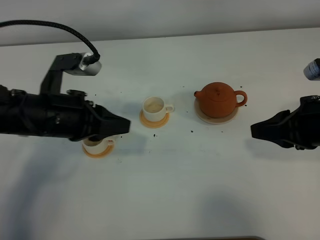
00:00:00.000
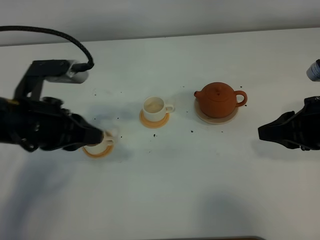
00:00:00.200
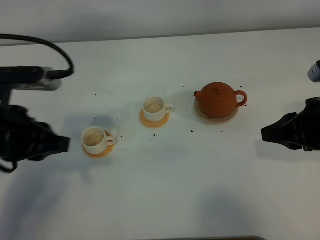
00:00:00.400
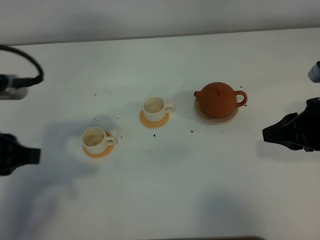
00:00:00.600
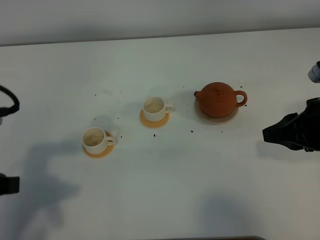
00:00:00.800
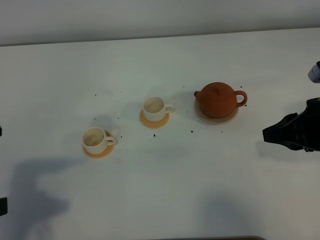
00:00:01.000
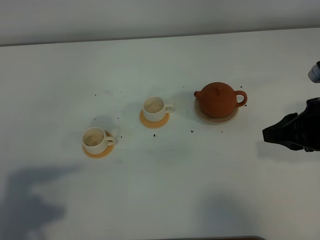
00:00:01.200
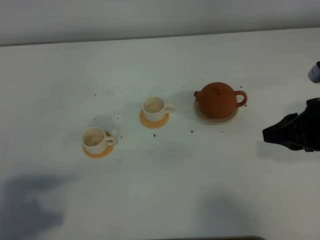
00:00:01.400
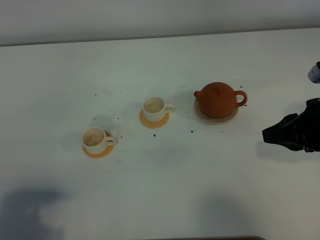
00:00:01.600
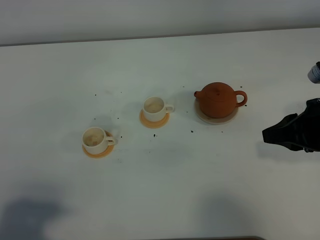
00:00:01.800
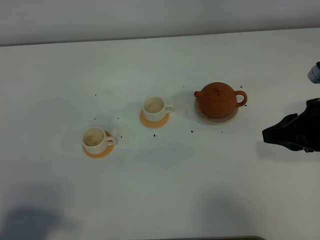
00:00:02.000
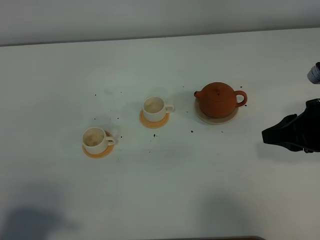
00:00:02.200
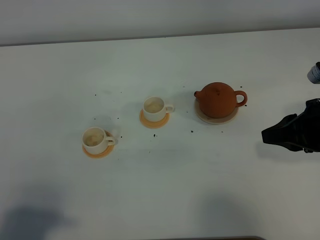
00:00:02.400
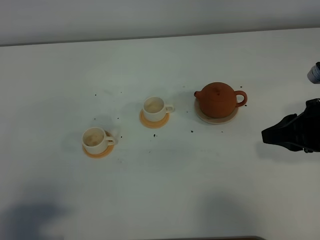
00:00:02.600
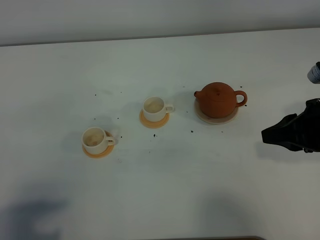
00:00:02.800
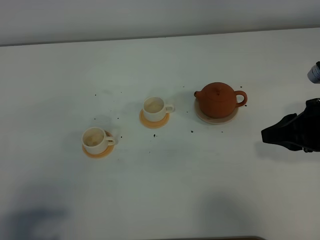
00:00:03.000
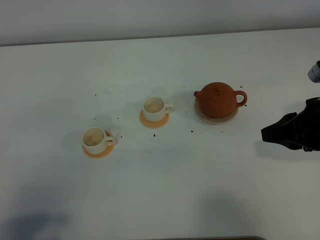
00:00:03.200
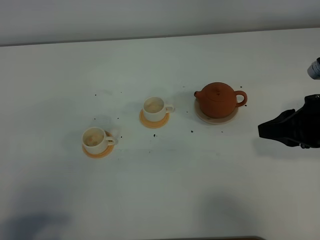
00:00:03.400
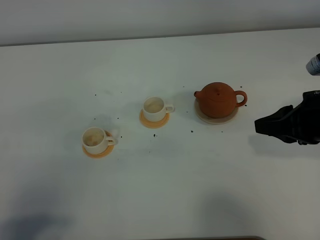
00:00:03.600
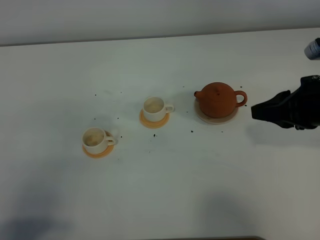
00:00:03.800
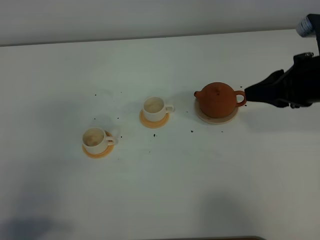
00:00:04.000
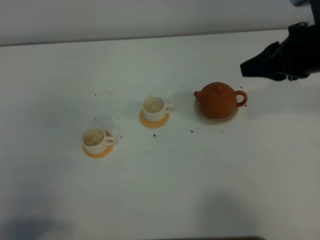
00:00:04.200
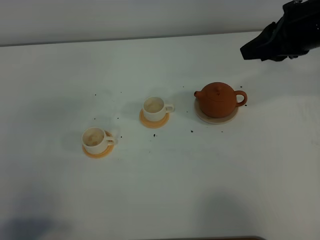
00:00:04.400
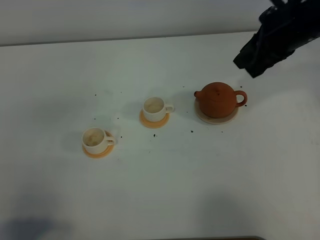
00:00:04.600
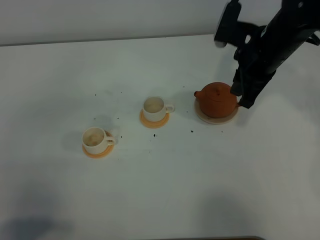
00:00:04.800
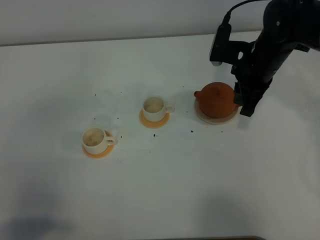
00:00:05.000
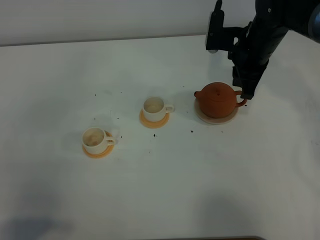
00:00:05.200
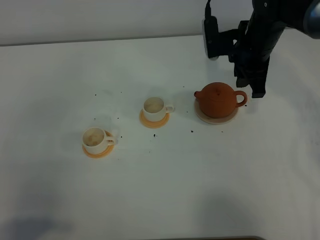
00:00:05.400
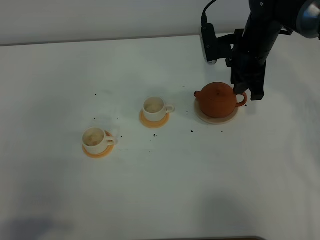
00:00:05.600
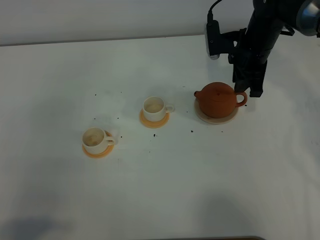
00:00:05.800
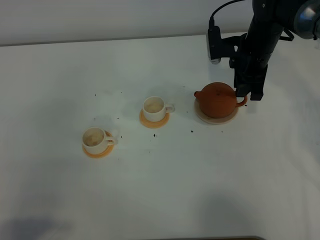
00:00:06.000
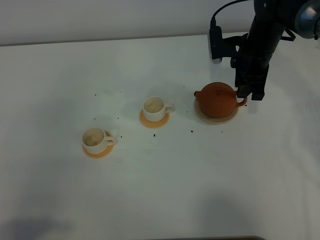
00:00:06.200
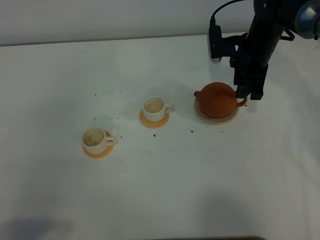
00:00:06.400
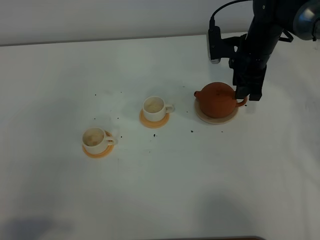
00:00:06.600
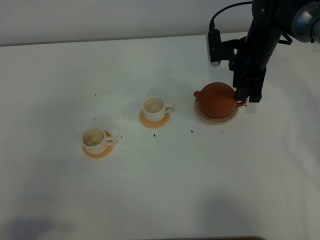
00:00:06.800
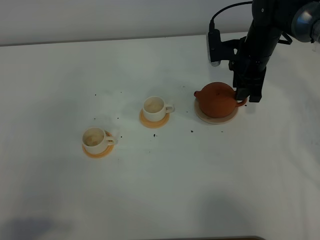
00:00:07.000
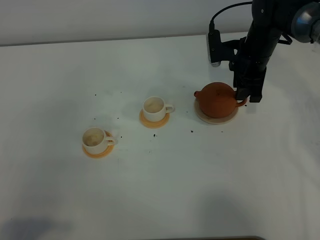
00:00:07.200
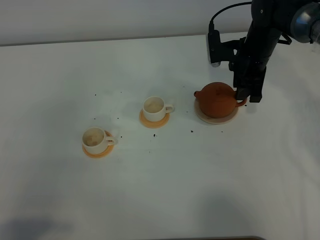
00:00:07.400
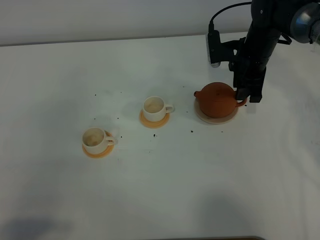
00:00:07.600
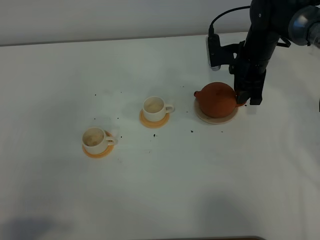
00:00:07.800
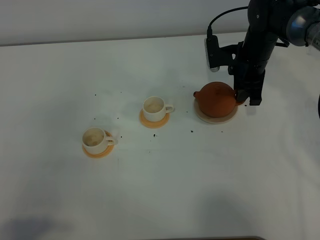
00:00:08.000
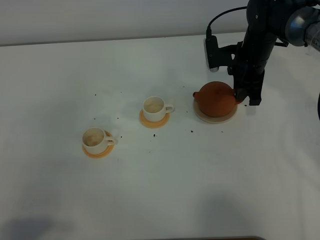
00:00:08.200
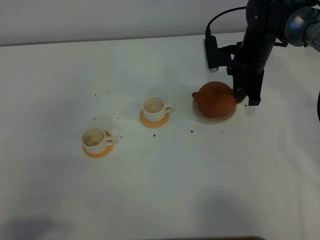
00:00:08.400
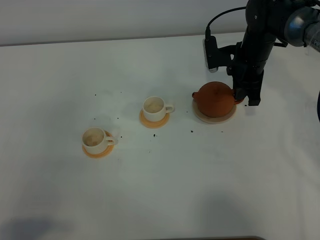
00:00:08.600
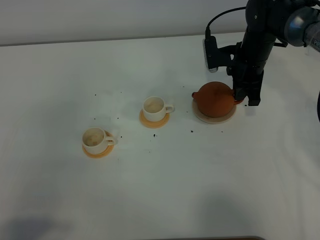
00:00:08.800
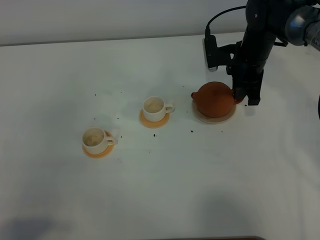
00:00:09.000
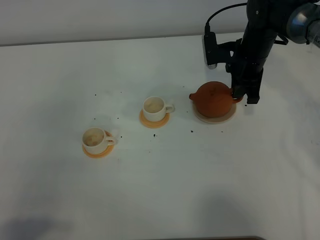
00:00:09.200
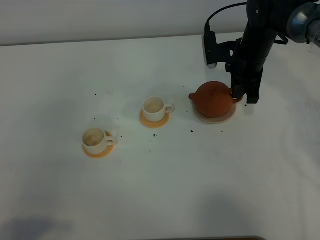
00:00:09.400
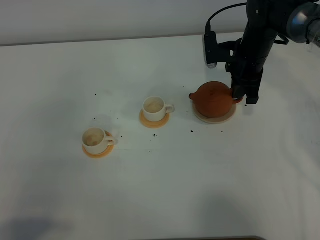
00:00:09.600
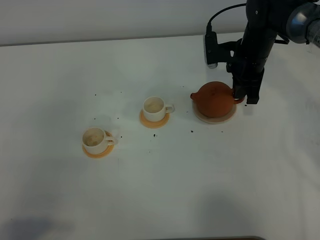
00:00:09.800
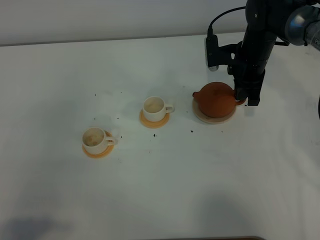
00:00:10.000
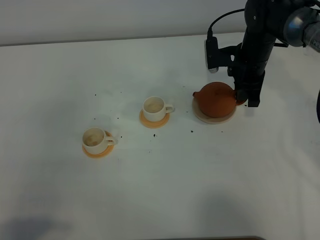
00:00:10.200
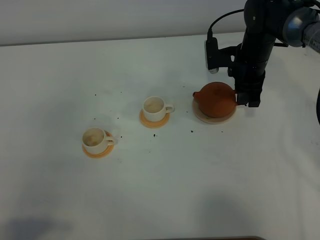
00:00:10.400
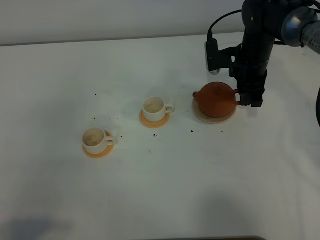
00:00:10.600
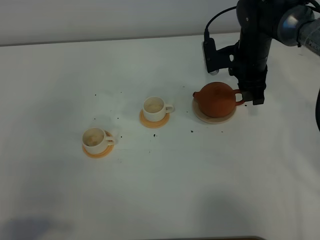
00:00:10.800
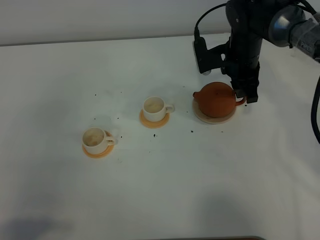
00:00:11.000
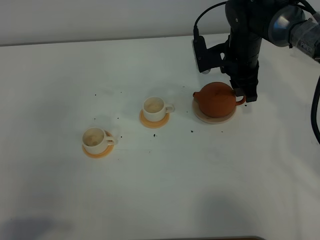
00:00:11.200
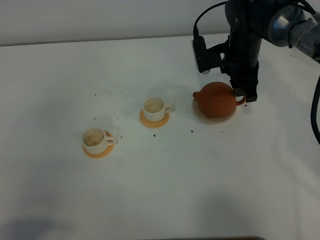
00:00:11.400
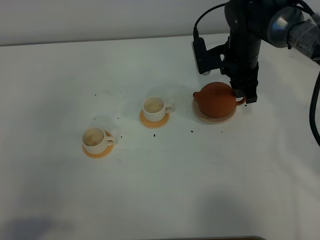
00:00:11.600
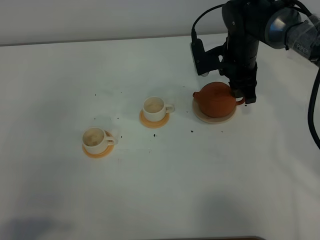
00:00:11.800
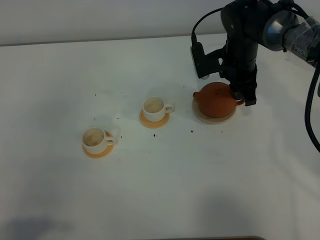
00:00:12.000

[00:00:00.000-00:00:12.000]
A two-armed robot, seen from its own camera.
Task of the whole recording: grasp the brown teapot and pour the tea into the two white teacups one by one, put the brown teapot back in its original place.
00:00:00.000 to 00:00:01.600: The left gripper shifts about 25 cm backward and to the left.
00:00:01.600 to 00:00:03.000: There are only small adjustments of the grippers.
00:00:03.000 to 00:00:04.400: The right gripper travels forward and upward by approximately 15 cm.
00:00:04.400 to 00:00:06.000: The right gripper is displaced downward, forward and to the left by approximately 20 cm.
00:00:06.000 to 00:00:07.600: The right gripper opens up.
00:00:07.600 to 00:00:09.000: The right gripper closes.
00:00:09.000 to 00:00:10.400: The right gripper opens.
00:00:10.400 to 00:00:12.000: The grippers move only a little.

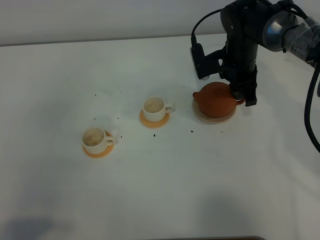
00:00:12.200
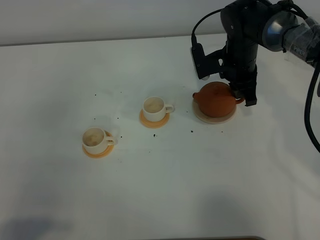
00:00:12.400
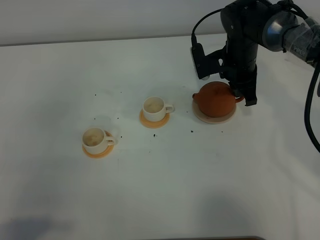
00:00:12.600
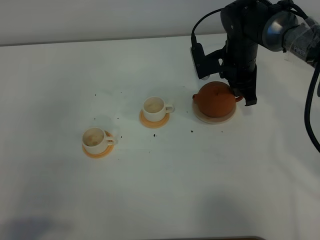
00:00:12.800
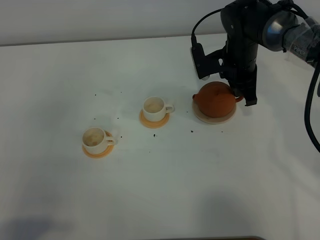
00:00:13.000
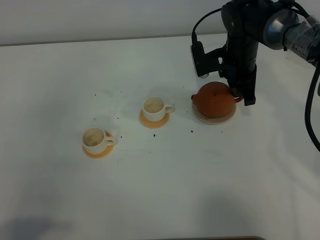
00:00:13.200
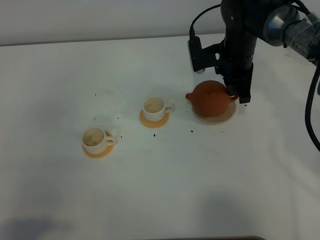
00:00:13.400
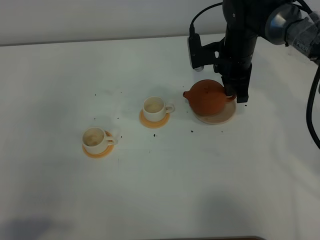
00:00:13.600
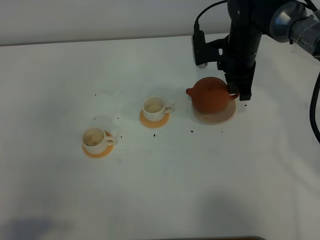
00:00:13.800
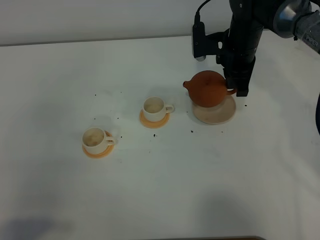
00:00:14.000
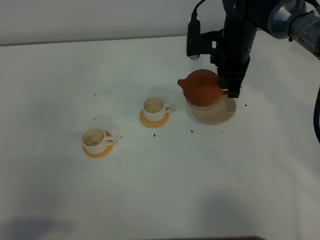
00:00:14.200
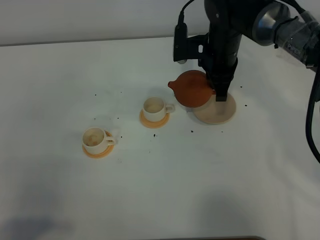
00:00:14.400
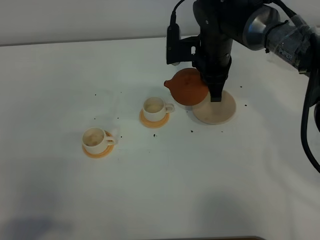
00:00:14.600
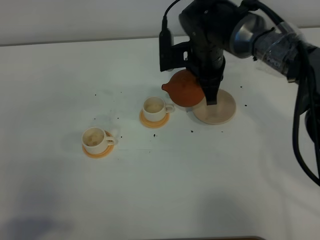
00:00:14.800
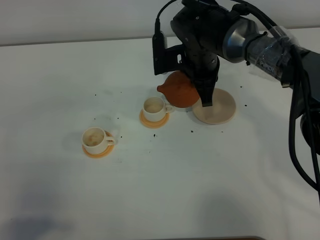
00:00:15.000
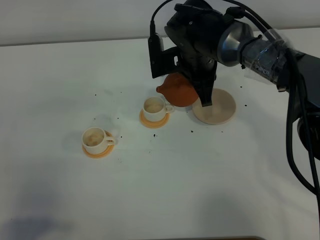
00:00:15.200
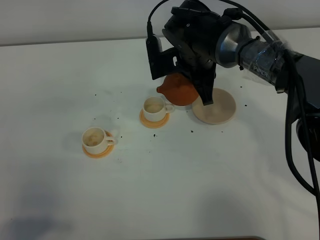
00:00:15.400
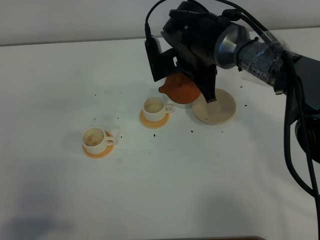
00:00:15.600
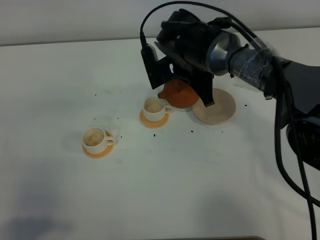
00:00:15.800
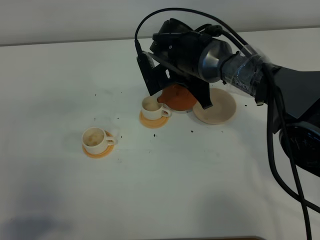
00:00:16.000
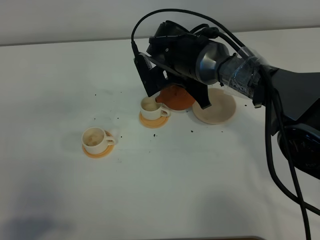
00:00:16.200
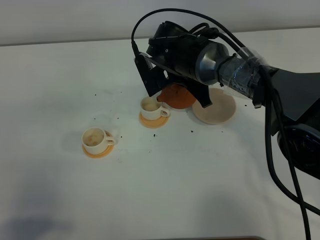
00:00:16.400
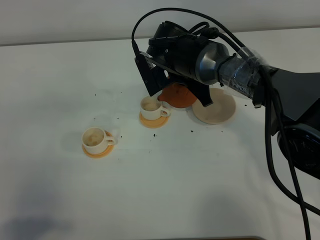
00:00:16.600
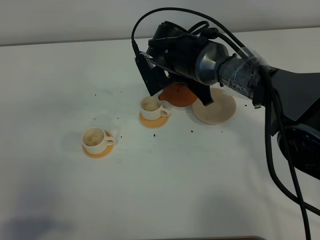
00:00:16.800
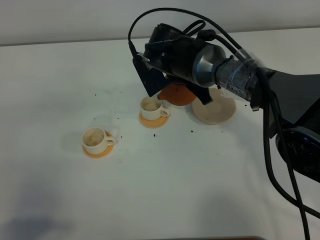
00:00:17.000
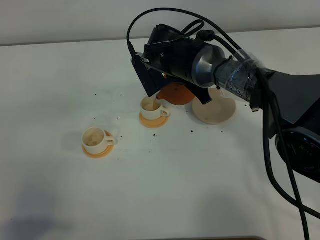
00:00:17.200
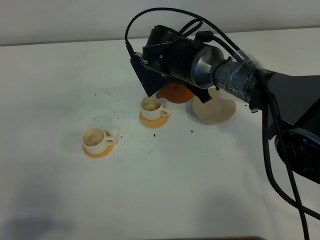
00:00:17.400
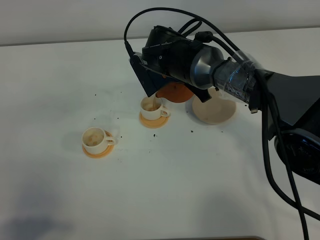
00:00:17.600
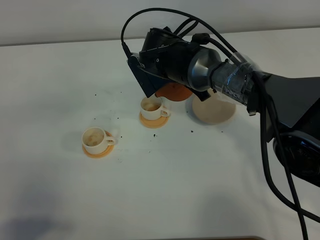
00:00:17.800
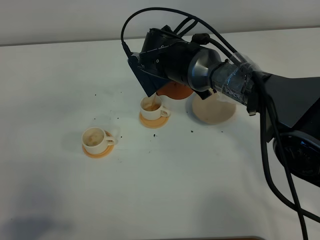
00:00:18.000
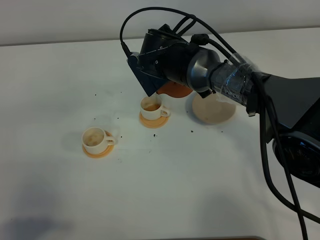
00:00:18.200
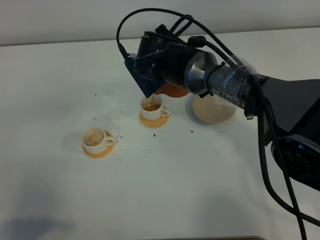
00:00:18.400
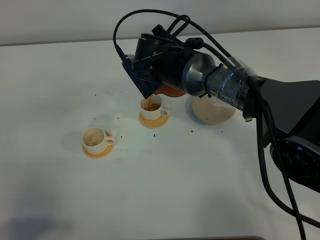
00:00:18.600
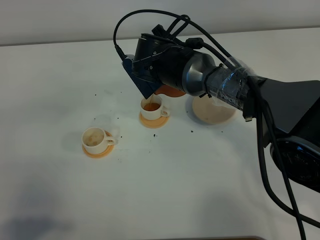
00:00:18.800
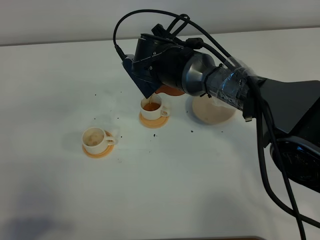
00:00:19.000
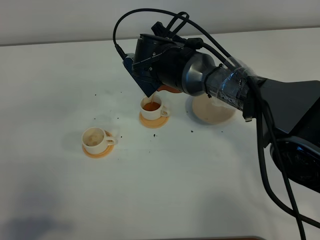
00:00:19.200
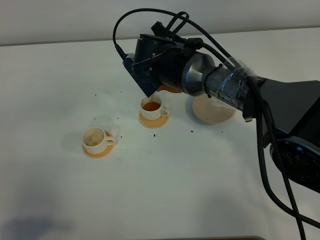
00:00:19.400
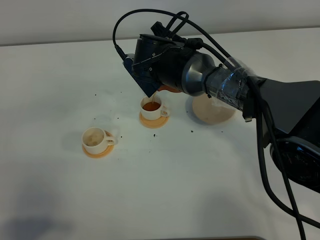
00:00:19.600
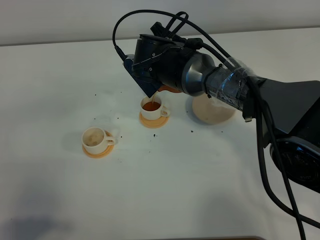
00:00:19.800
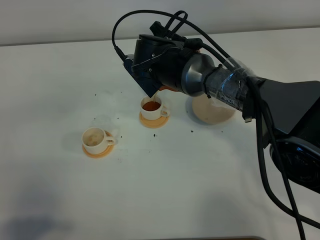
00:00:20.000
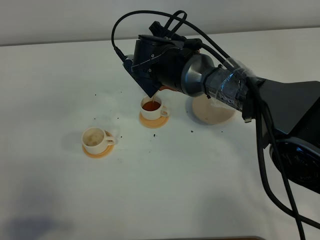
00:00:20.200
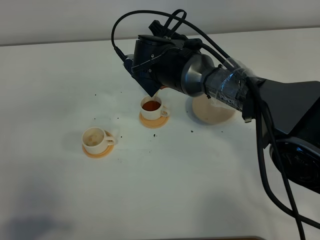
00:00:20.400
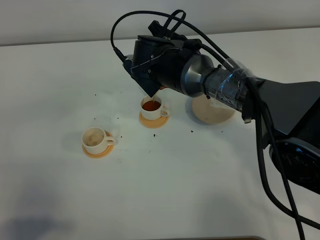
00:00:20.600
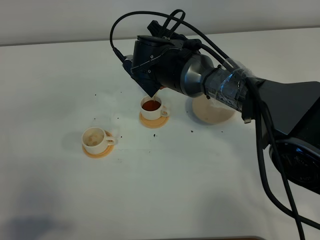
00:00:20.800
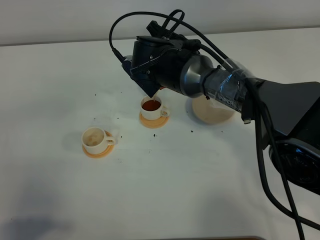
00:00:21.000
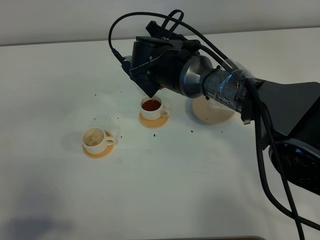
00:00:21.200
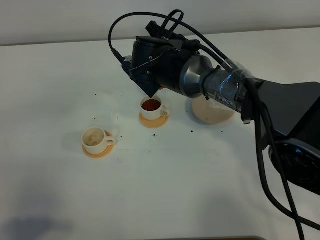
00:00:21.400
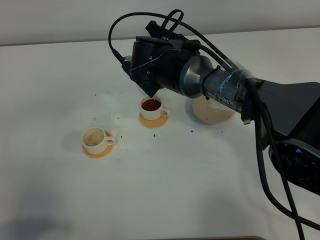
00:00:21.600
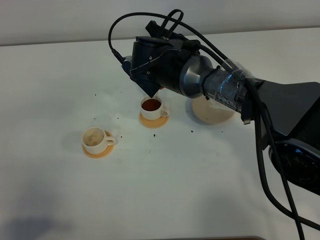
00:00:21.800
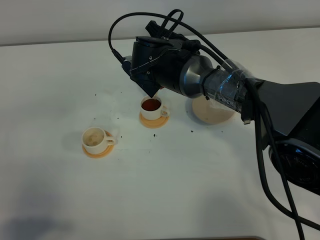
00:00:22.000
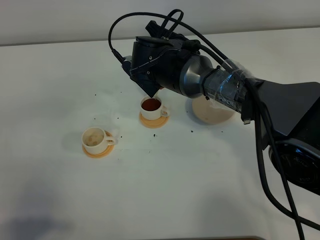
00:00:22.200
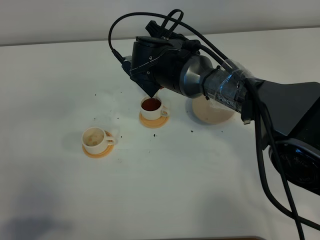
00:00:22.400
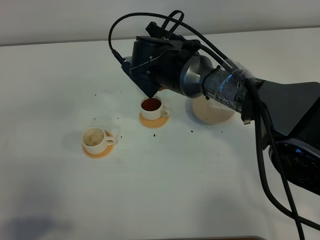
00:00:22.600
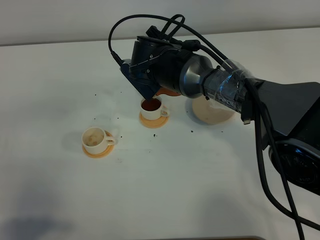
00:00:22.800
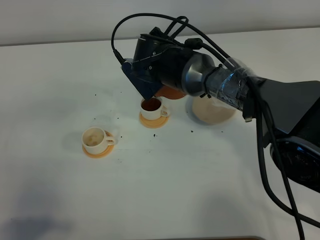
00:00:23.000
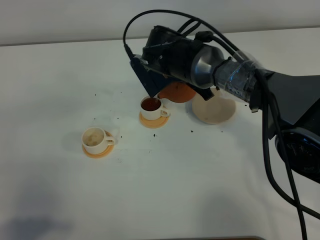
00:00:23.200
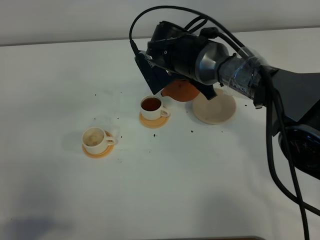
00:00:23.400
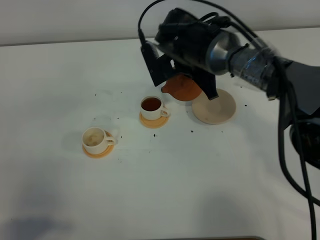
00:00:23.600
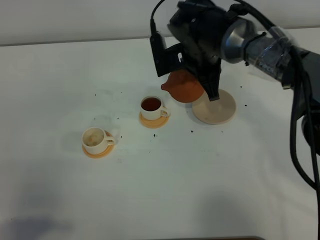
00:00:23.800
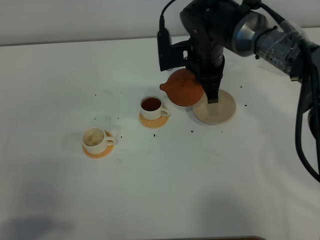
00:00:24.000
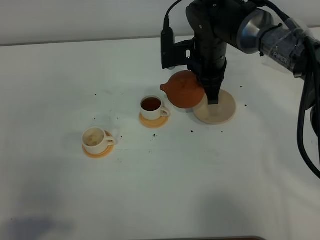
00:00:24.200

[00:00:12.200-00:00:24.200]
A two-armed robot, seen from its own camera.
Task of the whole recording: grasp the brown teapot and pour the tea into the two white teacups one by one, put the brown teapot back in its original place.
Step, 00:00:14.000 to 00:00:23.200: Pour tea into the teacup with the right gripper.
00:00:12.200 to 00:00:13.800: The right gripper closes.
00:00:13.800 to 00:00:15.200: The right gripper heads to the left and backward, covering roughly 10 cm.
00:00:15.200 to 00:00:16.600: The grippers make only small movements.
00:00:16.600 to 00:00:19.800: The grippers move only a little.
00:00:19.800 to 00:00:21.200: The grippers stay close to where they were, moving slightly.
00:00:21.200 to 00:00:22.600: The two grippers keep their place.
00:00:22.600 to 00:00:24.200: The right gripper moves to the right, approximately 5 cm.
